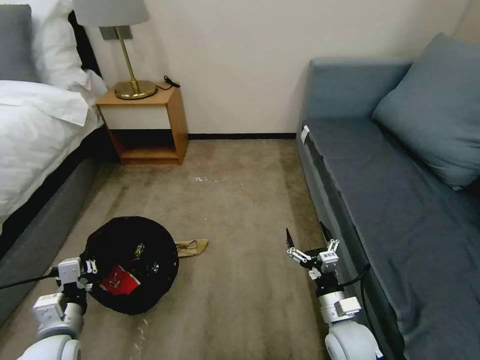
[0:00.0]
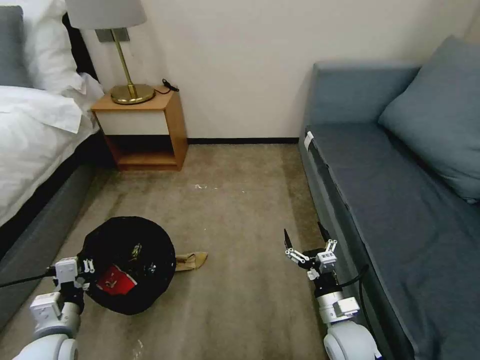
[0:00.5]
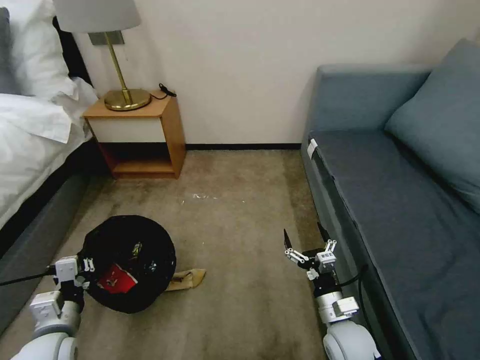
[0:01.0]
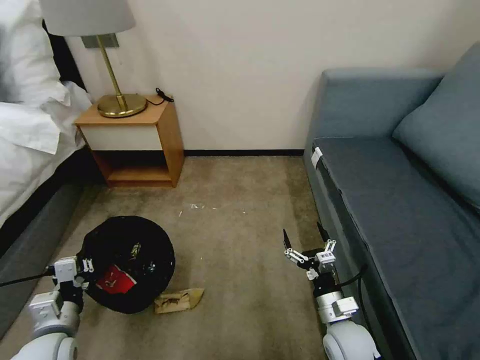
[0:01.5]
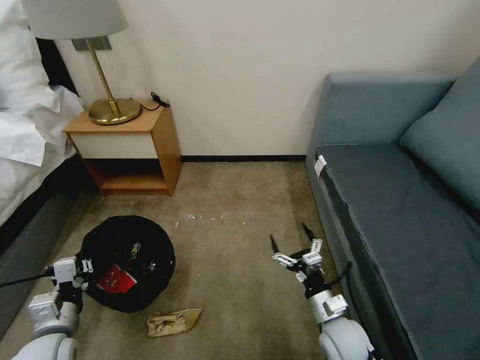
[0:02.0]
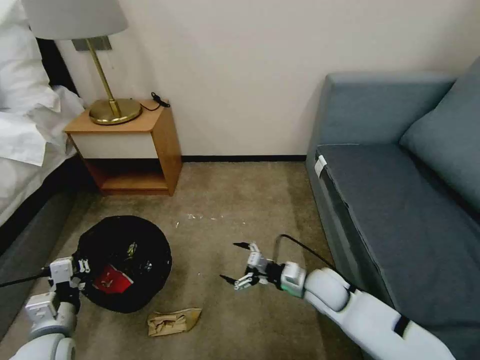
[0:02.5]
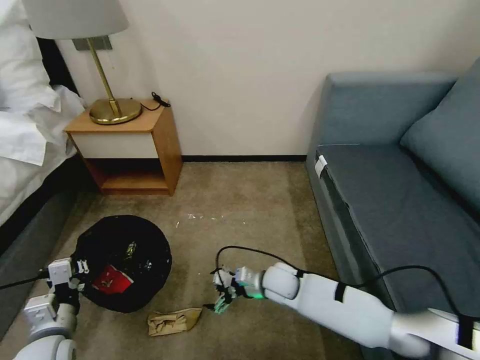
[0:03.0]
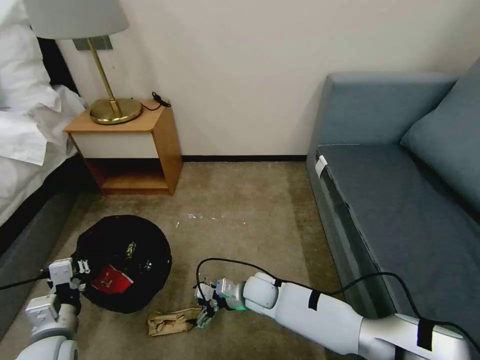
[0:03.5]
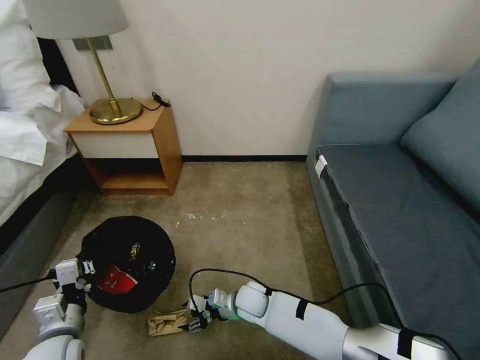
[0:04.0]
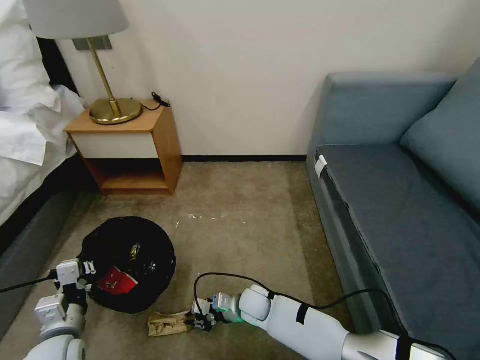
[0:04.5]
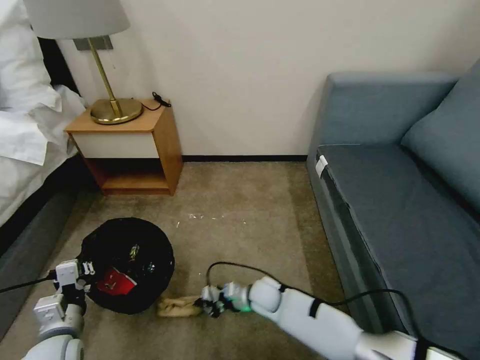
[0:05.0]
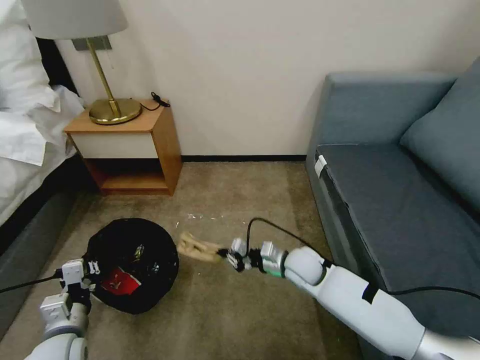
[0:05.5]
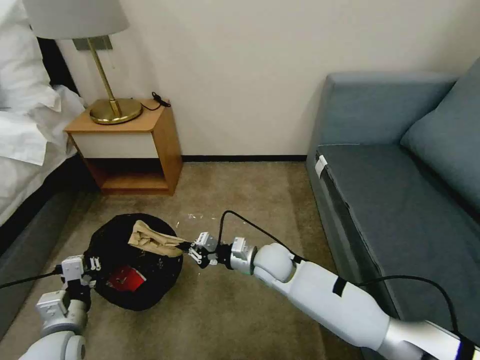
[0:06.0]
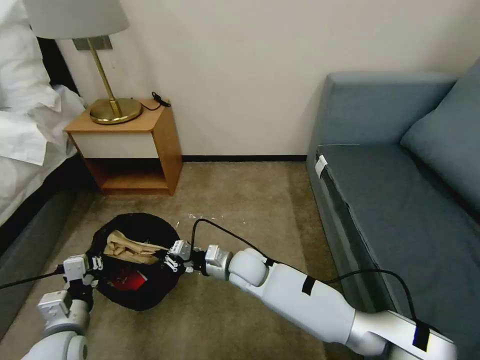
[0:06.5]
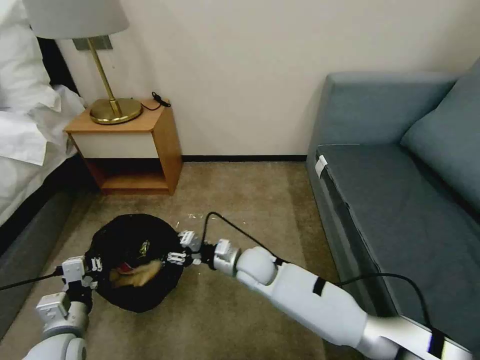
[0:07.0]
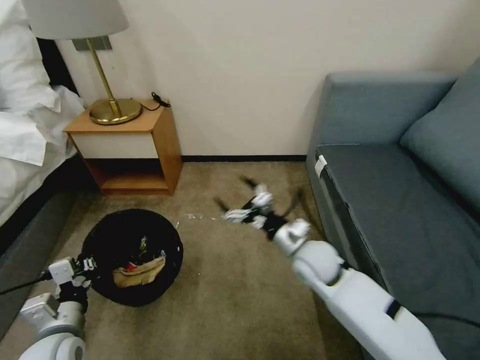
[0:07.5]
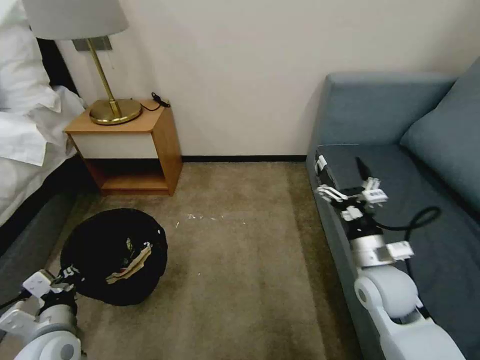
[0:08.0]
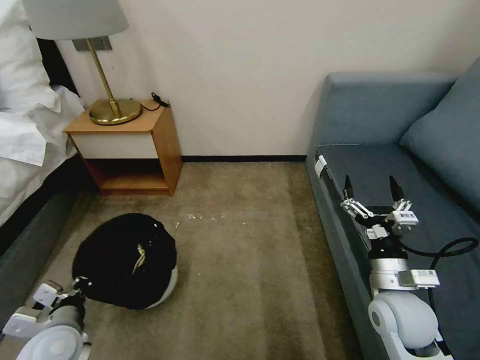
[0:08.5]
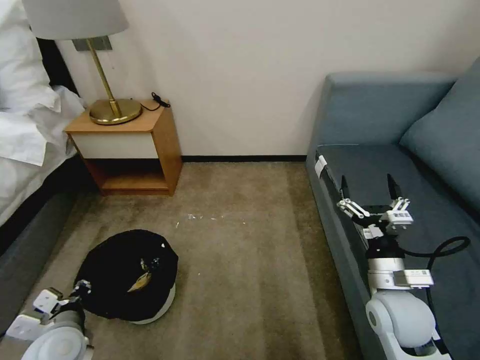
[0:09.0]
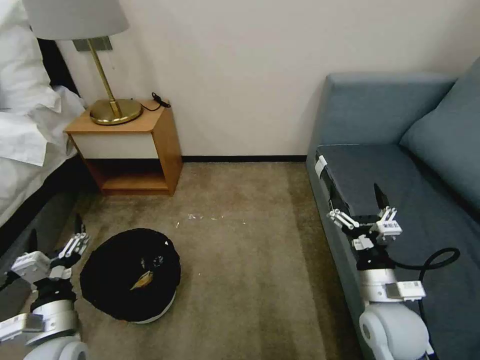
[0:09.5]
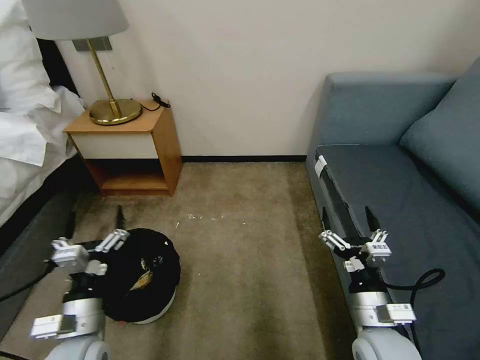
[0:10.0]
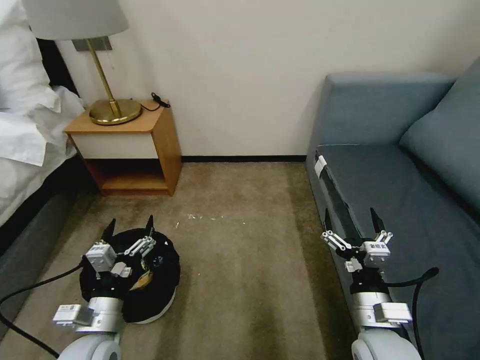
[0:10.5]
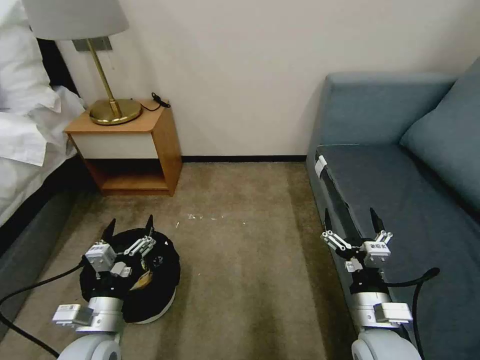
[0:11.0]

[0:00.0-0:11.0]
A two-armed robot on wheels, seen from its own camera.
Task of the whole recording: Pick up the trash bin, then pick up the garbage on the floor and place it into the trash bin.
0:02.0 to 0:03.5: The right gripper is displaced to the left and forward by approximately 20 cm.
0:03.5 to 0:05.5: The right gripper moves to the right and upward, roughly 15 cm, and closes up.
0:05.5 to 0:07.5: The right gripper moves upward, roughly 10 cm, travels to the left and back again, some 15 cm each way, and opens its fingers.
0:07.5 to 0:09.0: The right gripper moves to the right and backward, roughly 15 cm.
0:09.0 to 0:11.0: The left gripper goes approximately 10 cm to the right, and opens up, while the right gripper is displaced backward by roughly 5 cm.

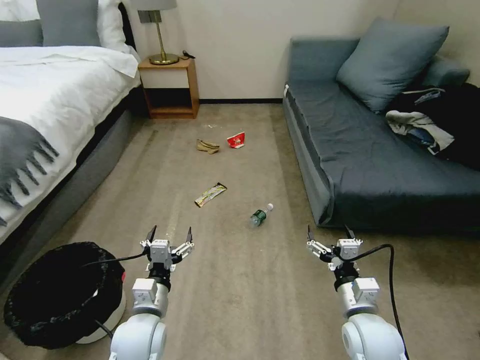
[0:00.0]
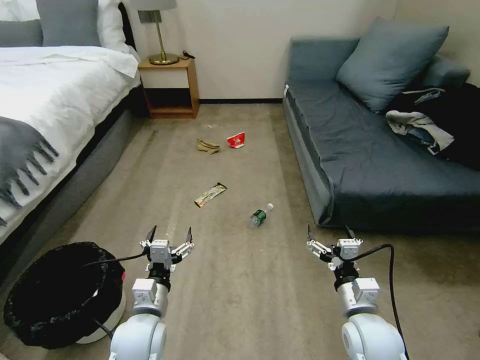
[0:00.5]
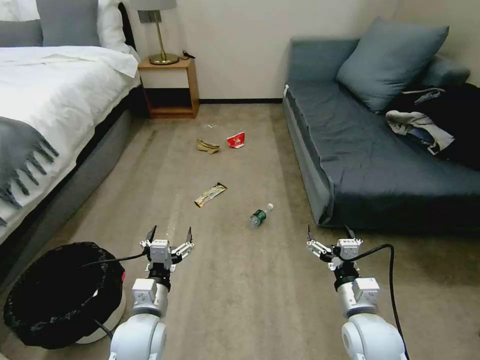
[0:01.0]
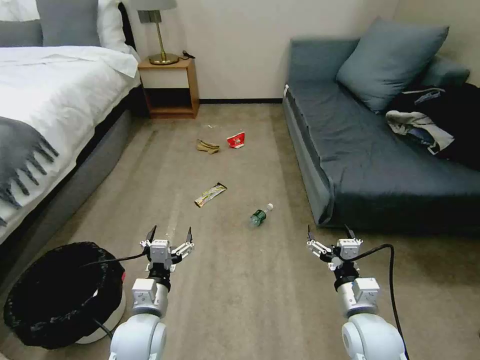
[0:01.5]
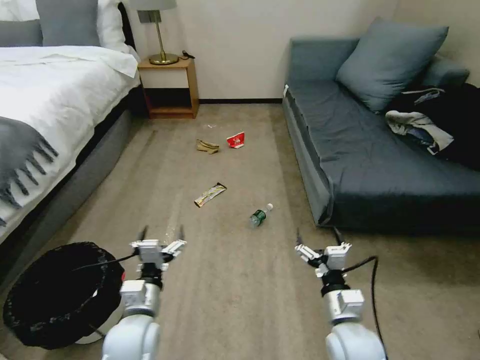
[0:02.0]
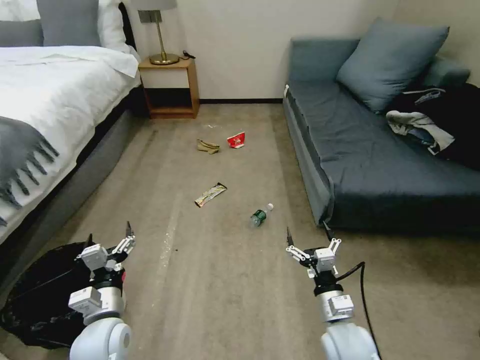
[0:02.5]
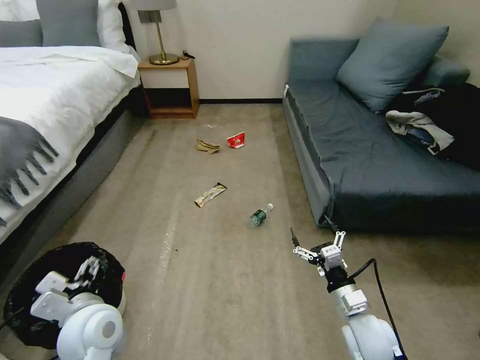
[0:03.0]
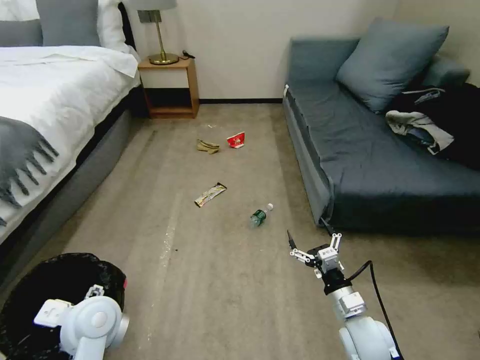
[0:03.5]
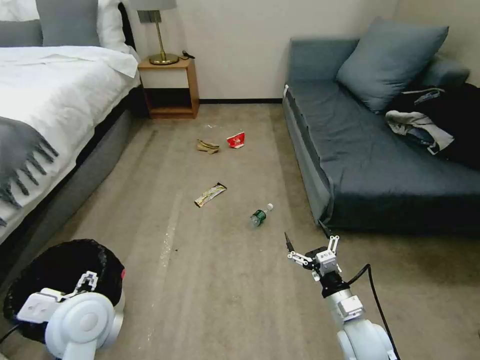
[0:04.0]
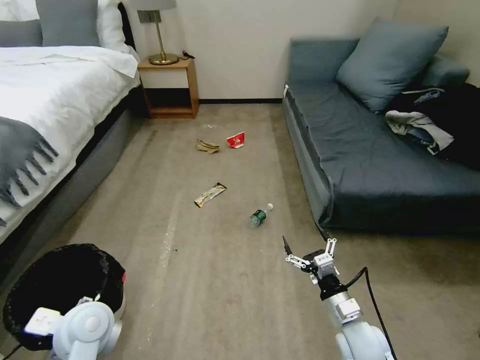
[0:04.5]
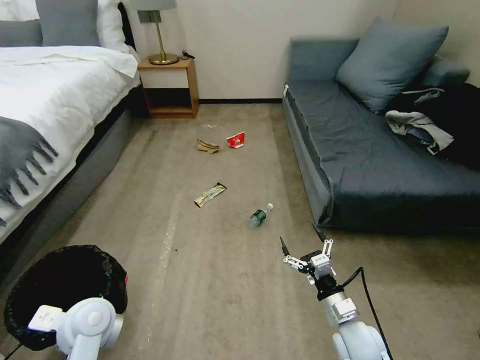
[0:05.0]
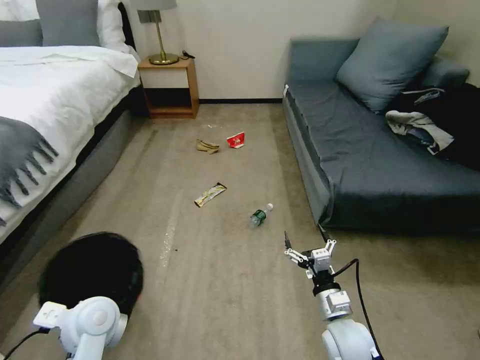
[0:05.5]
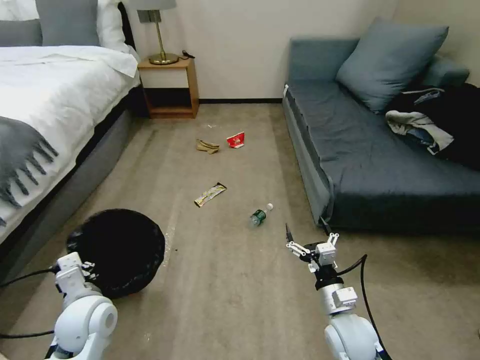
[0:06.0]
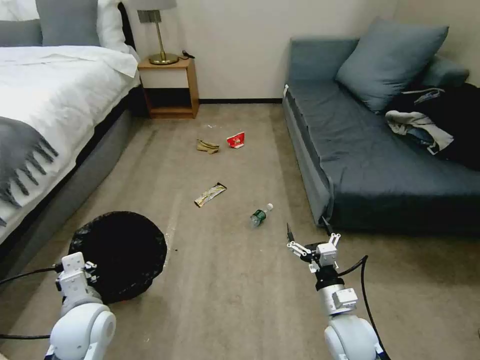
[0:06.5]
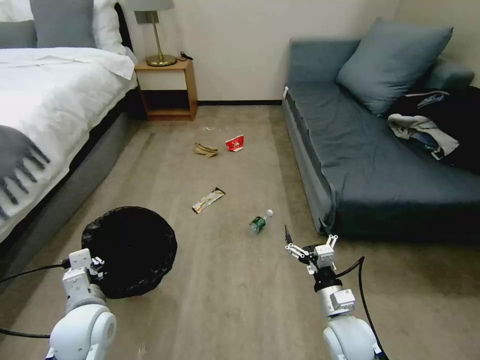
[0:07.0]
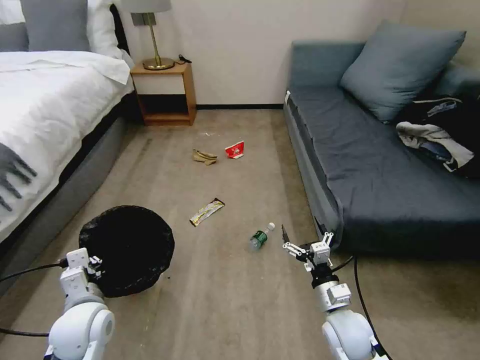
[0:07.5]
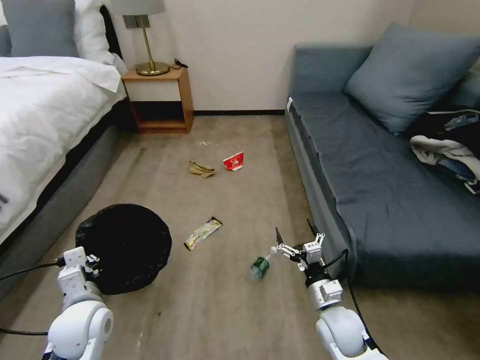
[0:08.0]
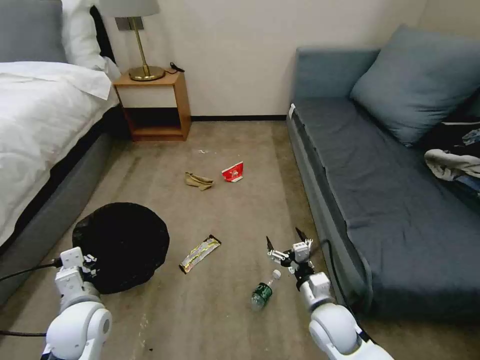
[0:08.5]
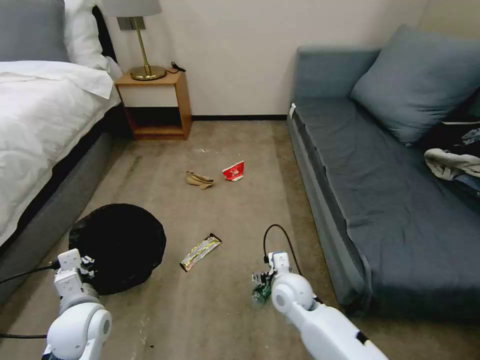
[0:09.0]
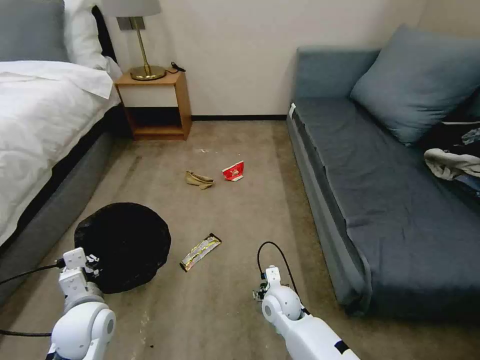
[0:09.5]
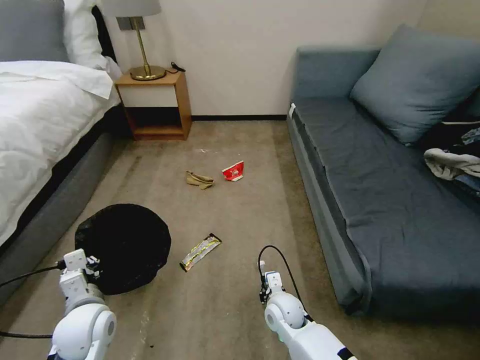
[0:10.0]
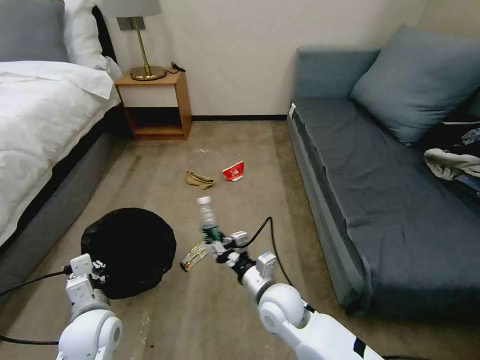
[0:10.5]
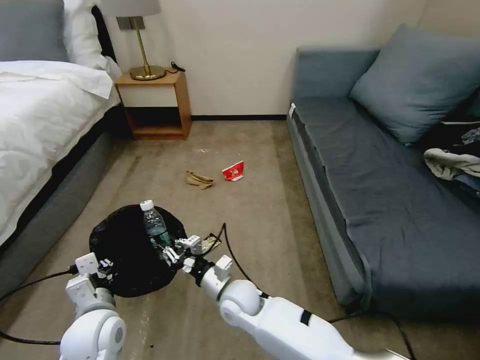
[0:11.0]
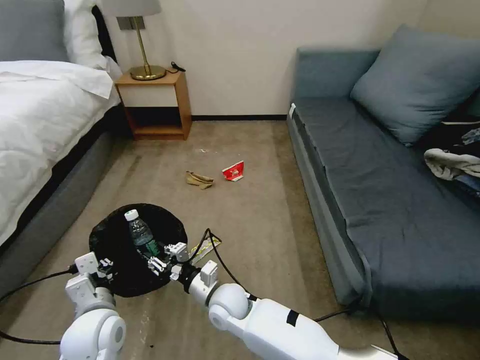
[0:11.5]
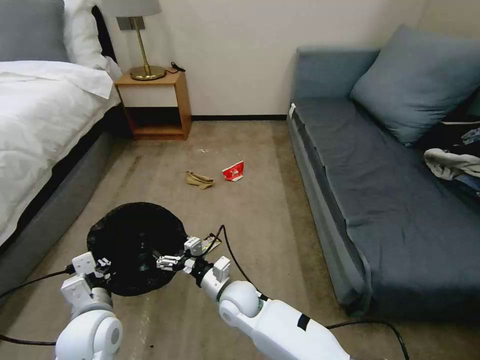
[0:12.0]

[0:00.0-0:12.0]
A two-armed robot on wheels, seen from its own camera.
Task of the whole recording: Pick up the trash bin, then pick up the garbage on the floor and place it into the trash bin.
0:02.0 to 0:04.0: The left gripper travels upward and to the left by about 10 cm.
0:04.0 to 0:06.0: The left gripper goes roughly 5 cm downward, and closes its fingers.
0:08.0 to 0:10.0: The right gripper moves to the left, about 10 cm, and closes.
0:10.0 to 0:12.0: The right gripper shifts about 15 cm to the left and upward, and opens its fingers.

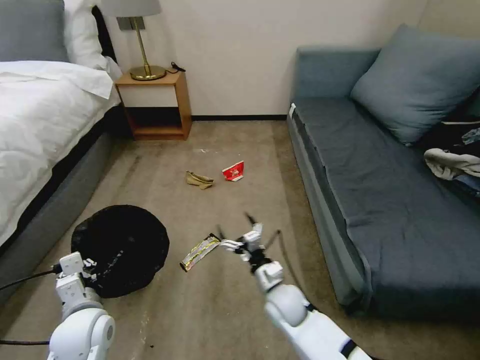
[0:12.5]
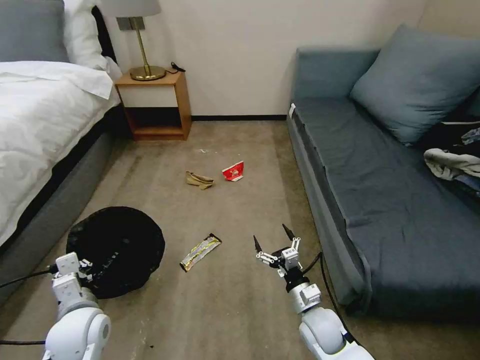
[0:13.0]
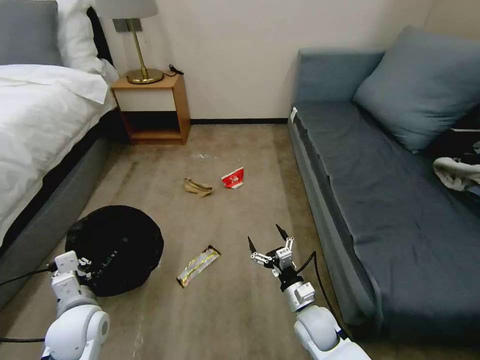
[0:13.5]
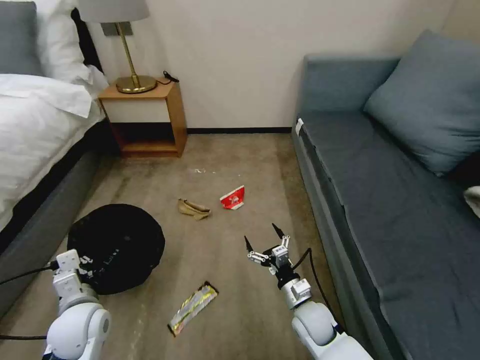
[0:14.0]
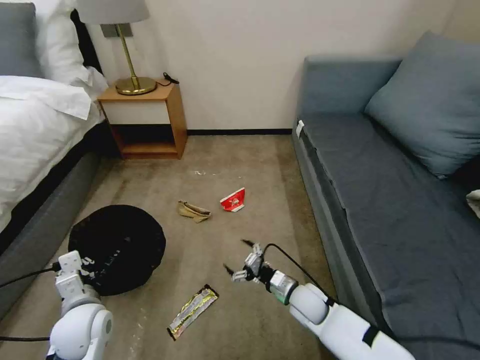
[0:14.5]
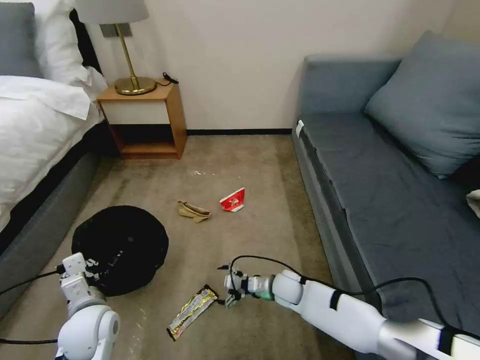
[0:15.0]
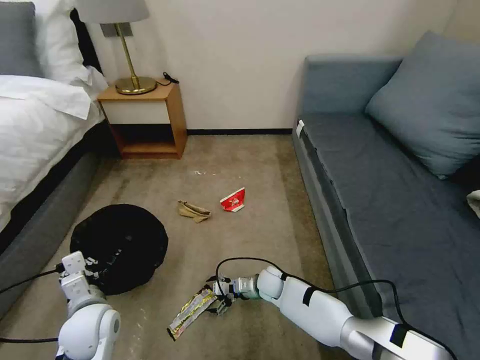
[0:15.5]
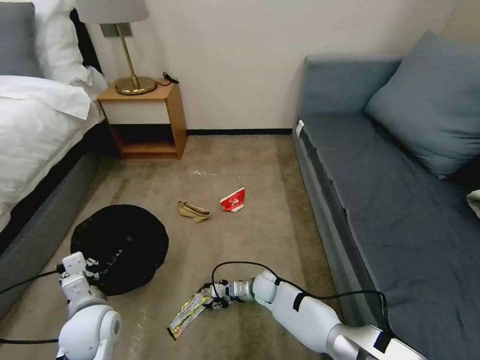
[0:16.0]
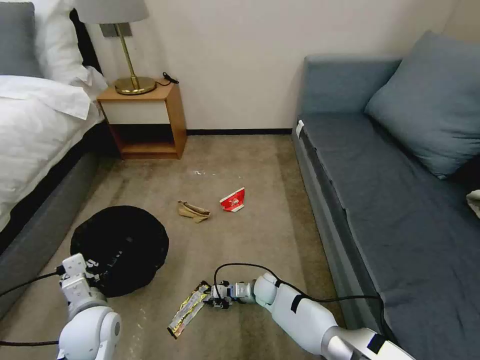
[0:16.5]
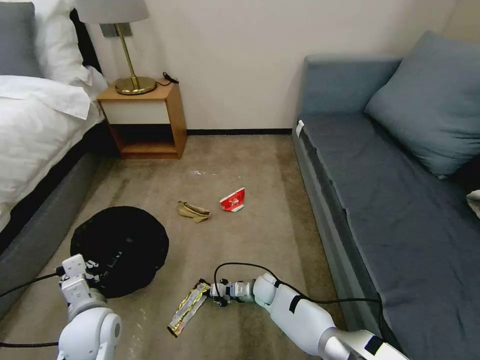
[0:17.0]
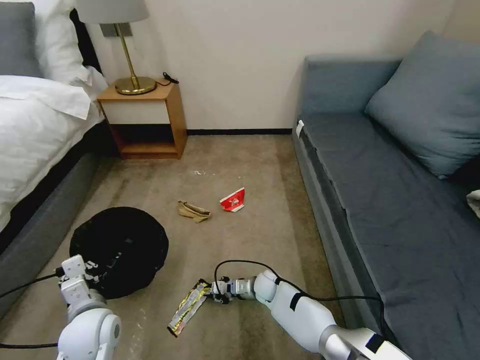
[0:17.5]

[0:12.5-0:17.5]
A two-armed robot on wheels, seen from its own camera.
Task of the whole recording: Pick up the trash bin, then pick up the garbage on the floor and place it into the trash bin.
0:12.5 to 0:15.0: The right gripper heads forward and downward, covering some 10 cm.
0:15.0 to 0:17.5: The right gripper is displaced downward by some 5 cm, and closes.
